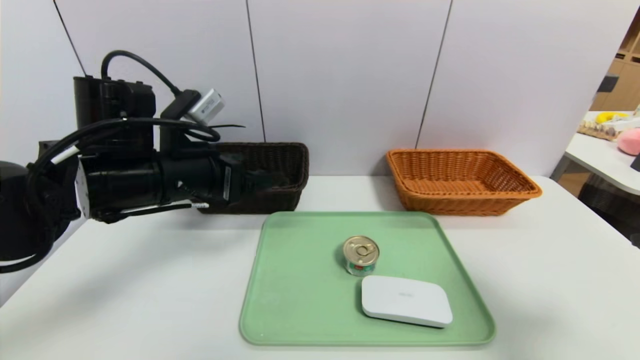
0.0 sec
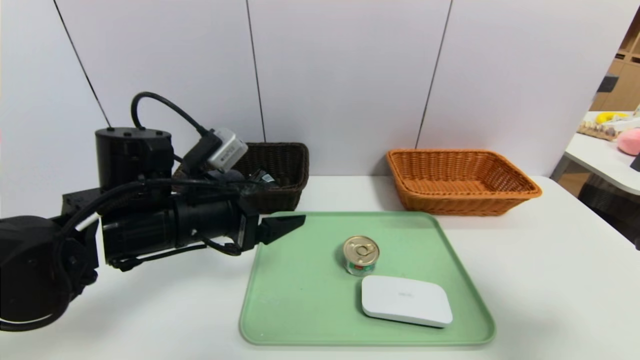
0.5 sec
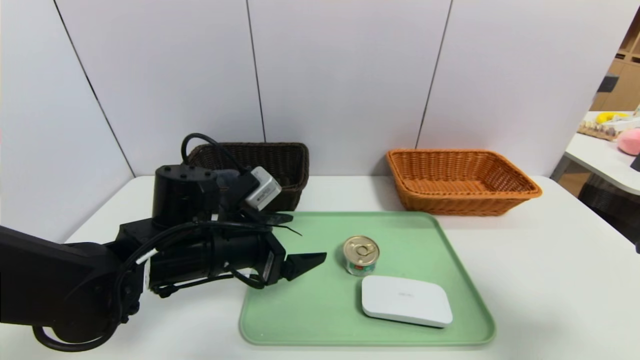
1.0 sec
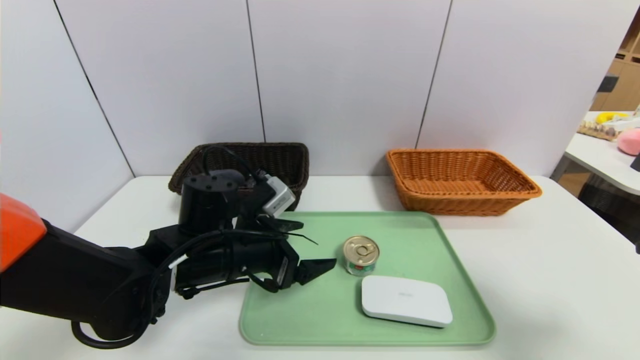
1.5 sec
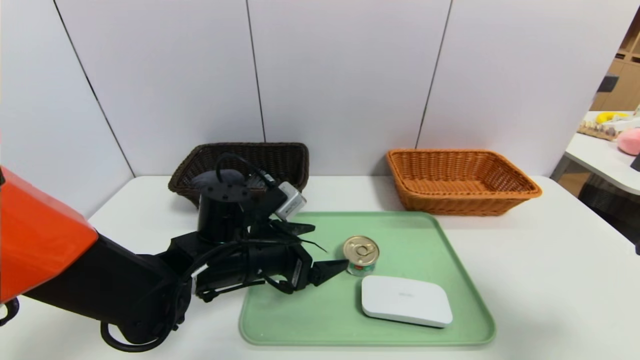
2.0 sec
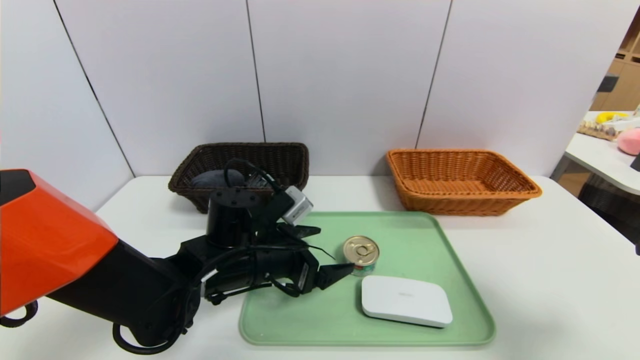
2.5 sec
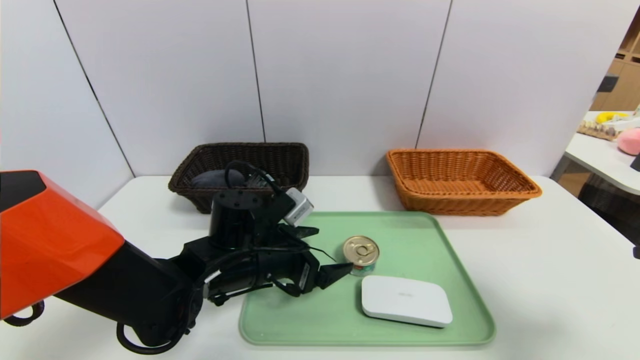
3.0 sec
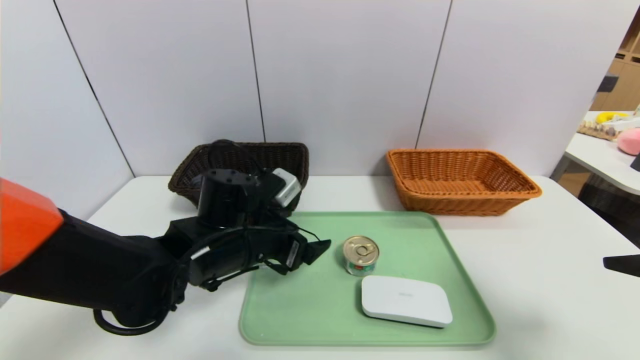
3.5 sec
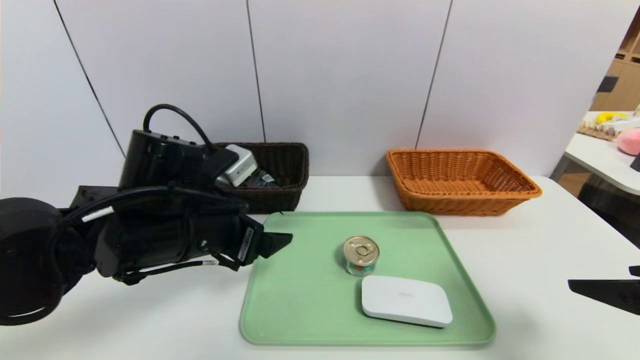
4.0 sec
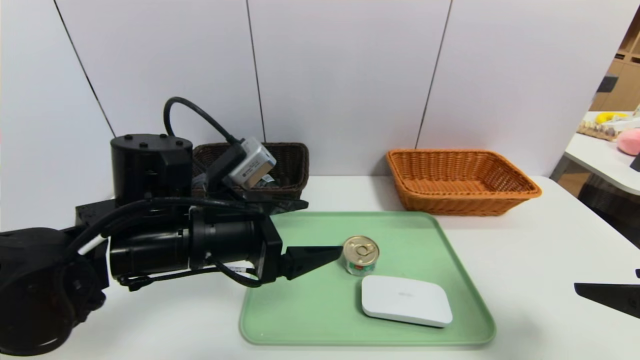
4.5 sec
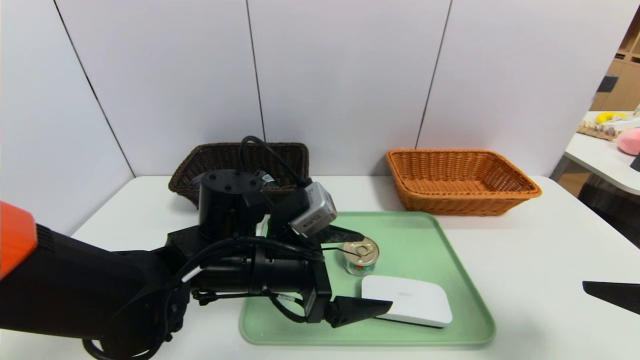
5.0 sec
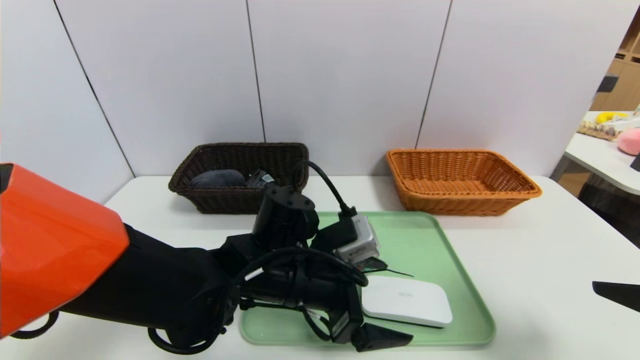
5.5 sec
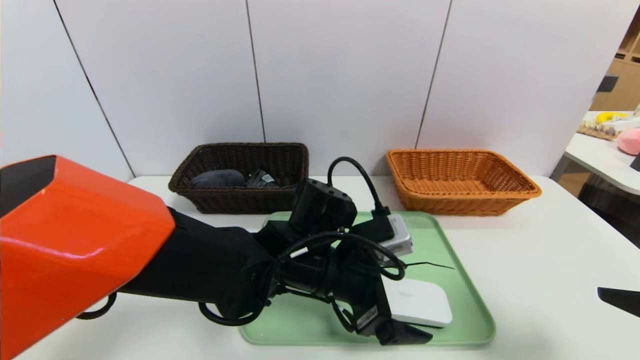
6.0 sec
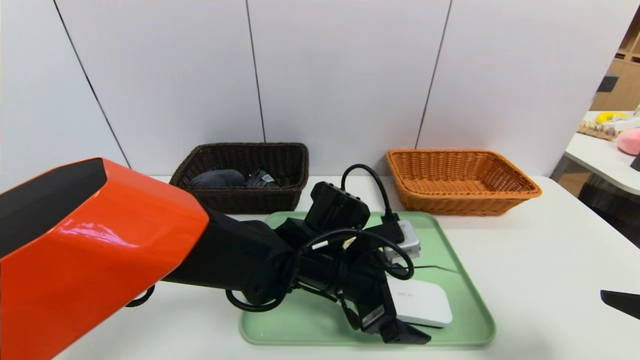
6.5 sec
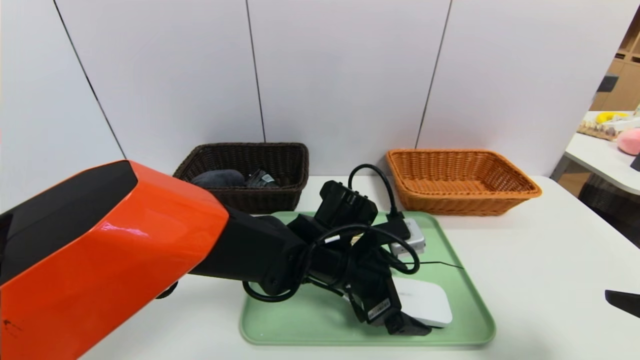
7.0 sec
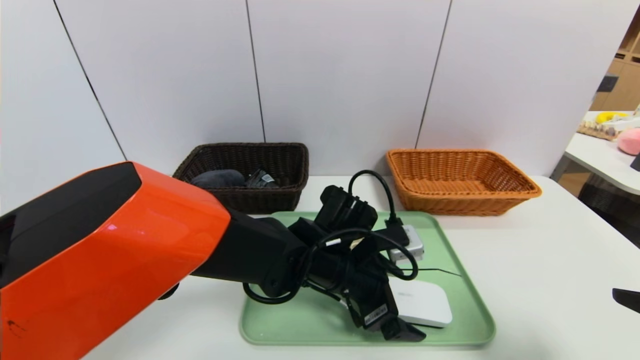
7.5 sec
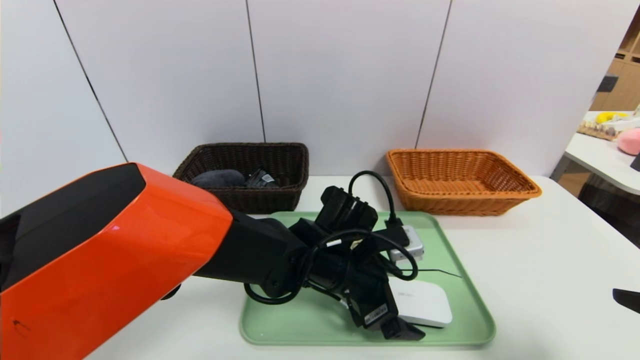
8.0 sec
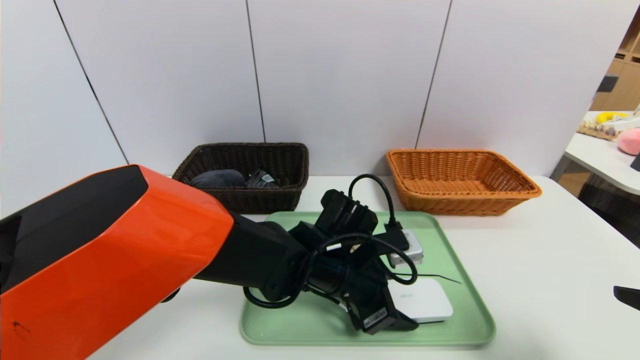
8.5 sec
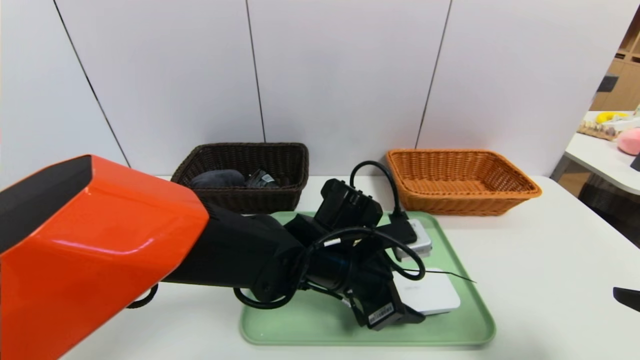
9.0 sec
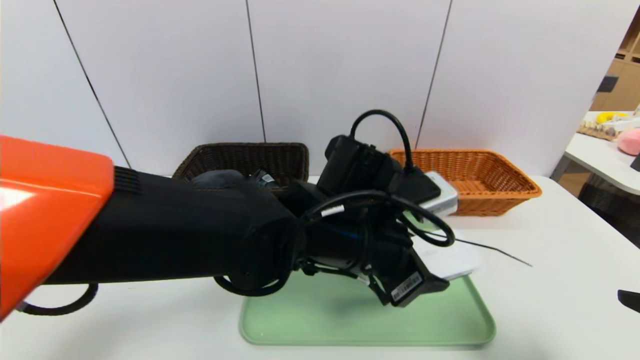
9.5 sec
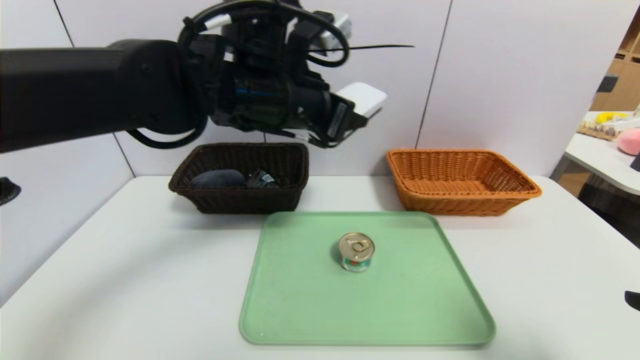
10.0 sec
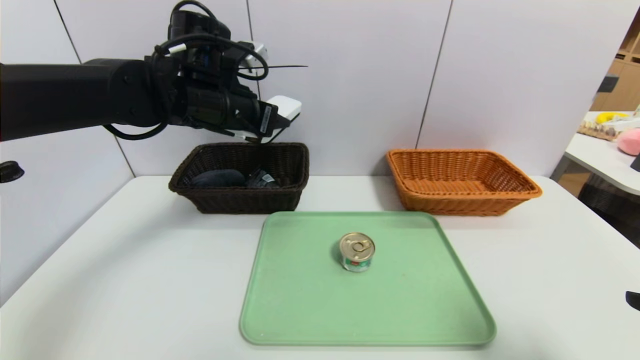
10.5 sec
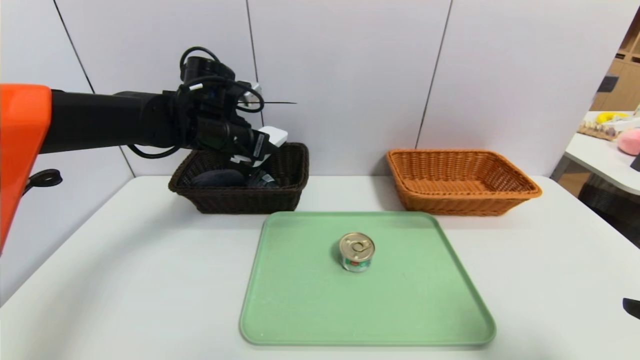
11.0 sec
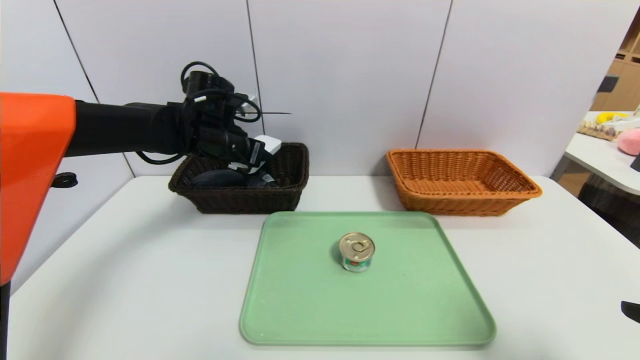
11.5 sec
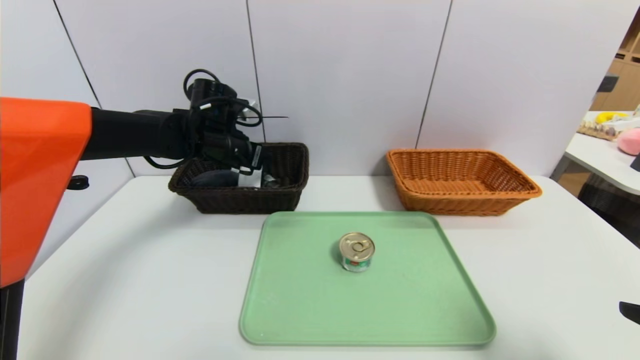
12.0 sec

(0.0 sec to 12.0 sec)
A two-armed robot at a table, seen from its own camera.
Task of the whole recording: place the food in the right basket with the right gripper, and place the non food items in the left basket with the left gripper.
0.0 sec - 2.0 sec: The left gripper moves downward and to the right, about 15 cm.
2.0 sec - 4.0 sec: The left gripper goes about 10 cm upward.
4.0 sec - 6.0 sec: The left gripper heads to the right and downward, covering some 15 cm.
6.0 sec - 8.0 sec: The grippers stay close to where they were, moving slightly.
8.0 sec - 10.0 sec: The left gripper is displaced upward by roughly 20 cm, and closes its fingers.
10.0 sec - 12.0 sec: The left gripper heads forward, downward and to the left, covering about 20 cm.

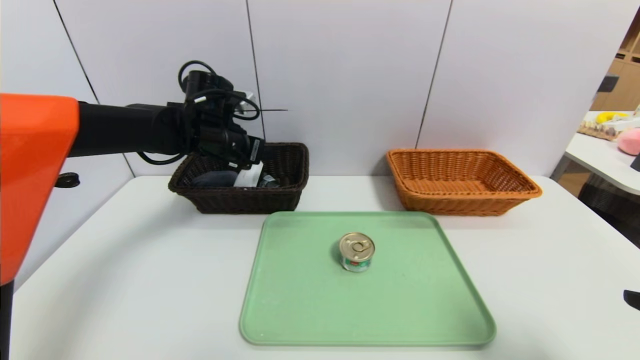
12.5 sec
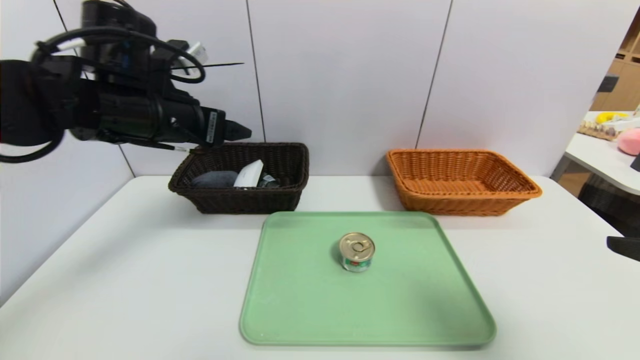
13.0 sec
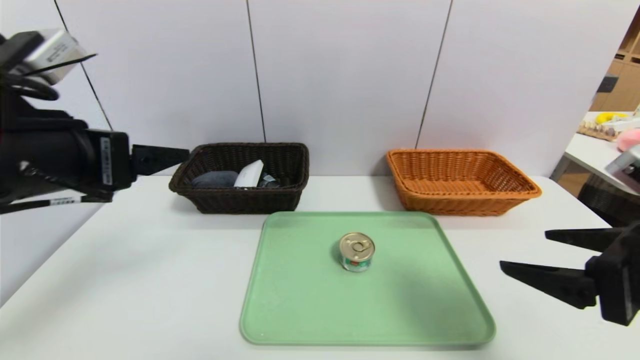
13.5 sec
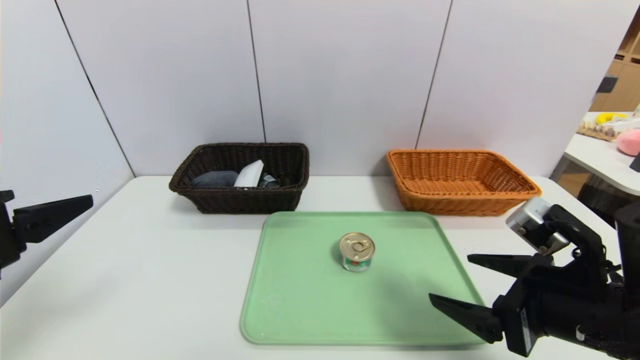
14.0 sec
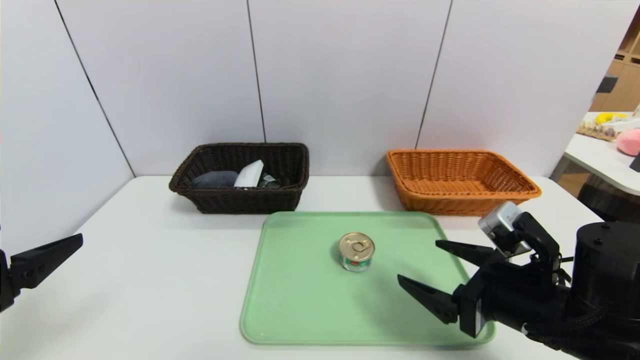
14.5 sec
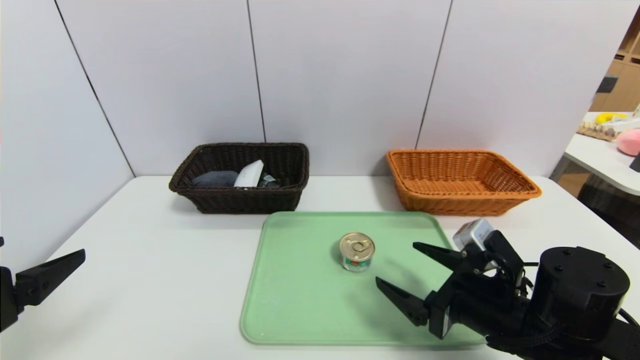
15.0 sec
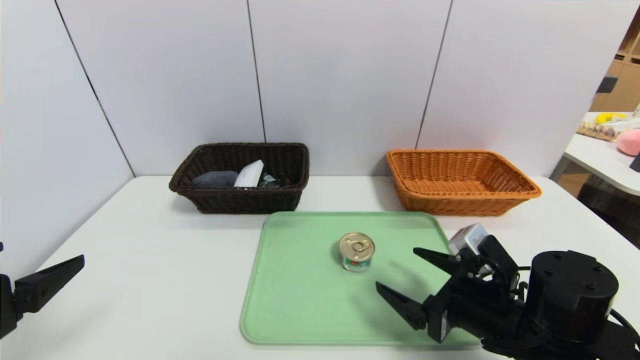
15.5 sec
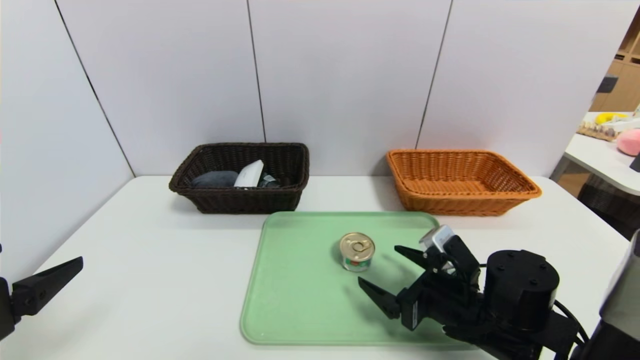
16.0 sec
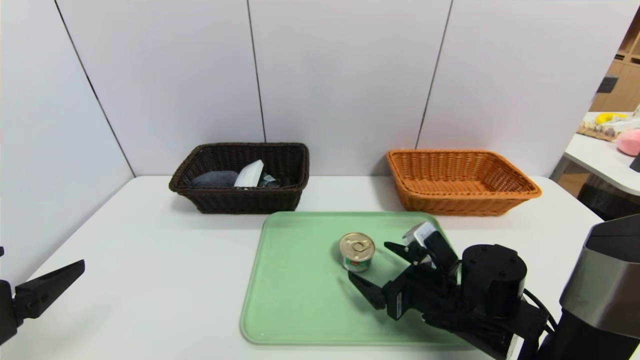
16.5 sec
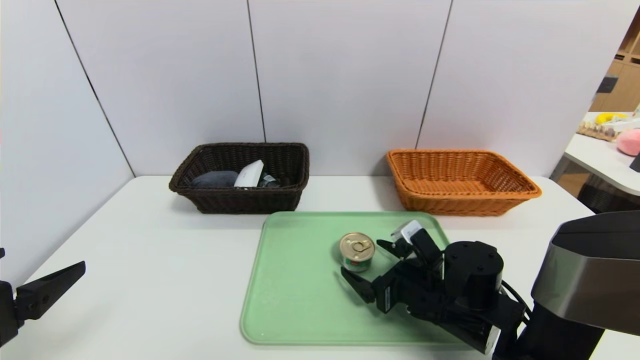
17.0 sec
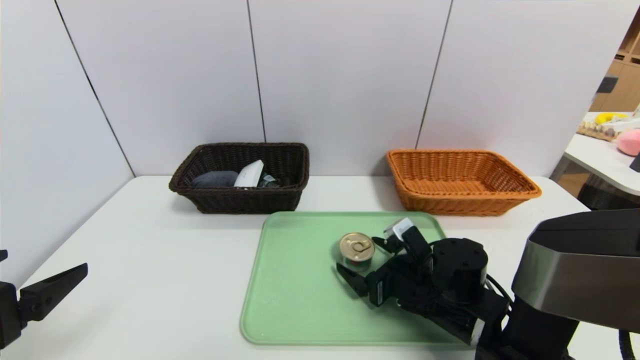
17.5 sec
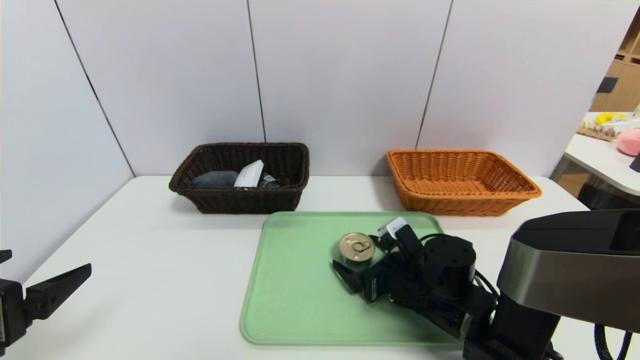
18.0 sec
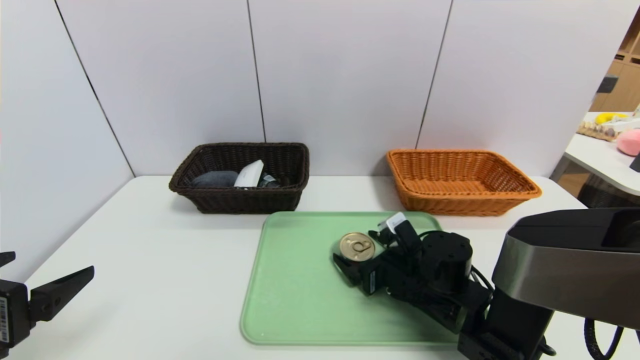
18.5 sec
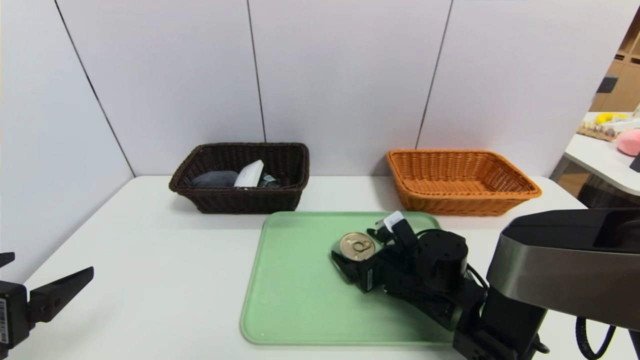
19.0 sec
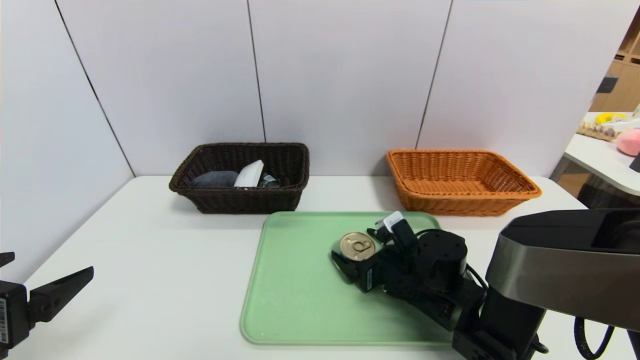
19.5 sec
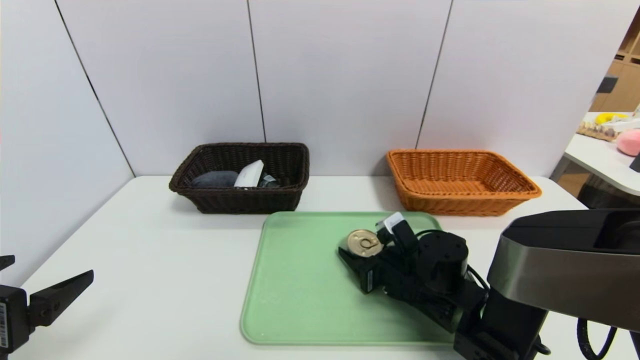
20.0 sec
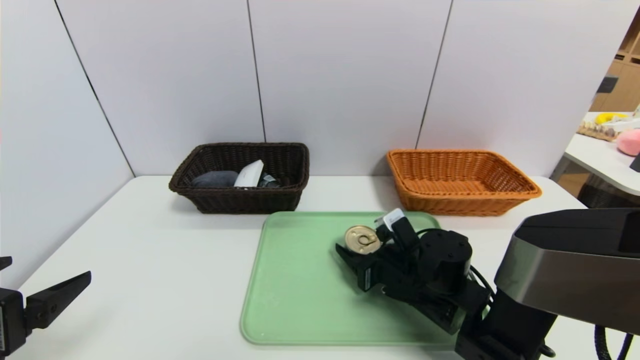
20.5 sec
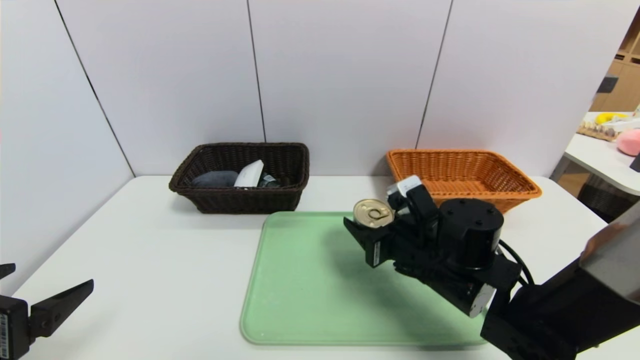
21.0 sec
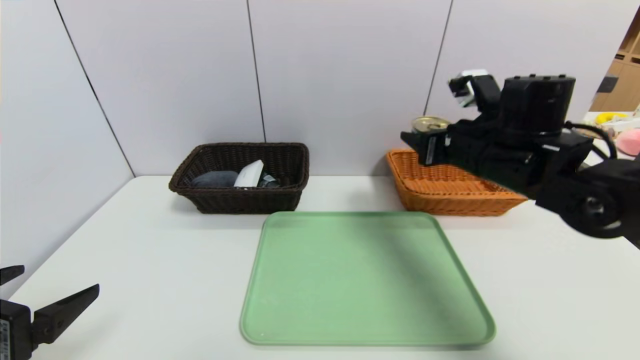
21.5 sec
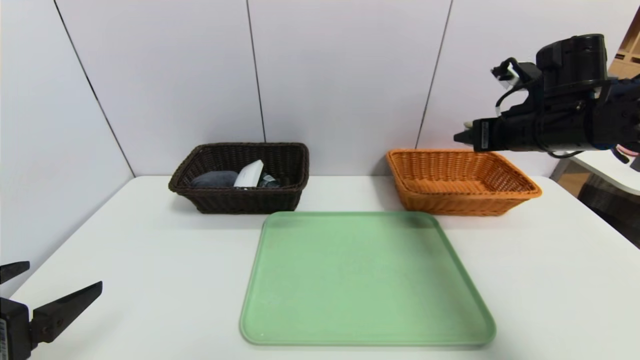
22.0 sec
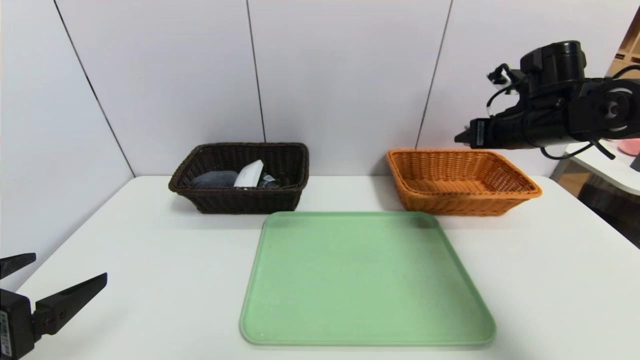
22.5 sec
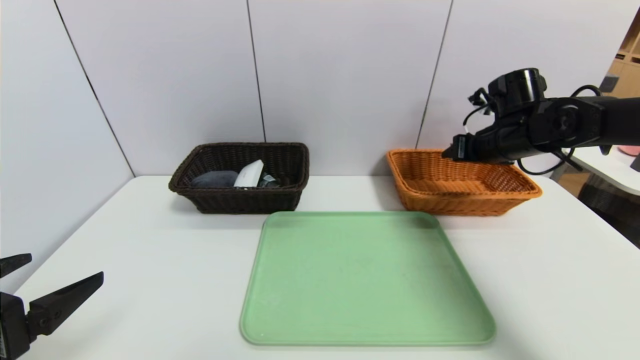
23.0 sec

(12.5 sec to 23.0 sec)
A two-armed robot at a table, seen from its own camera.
Task of the whole recording: place the food in the right basket with the right gripper, and place the non food items in the left basket with the left gripper.
12.5 sec - 14.5 sec: The left gripper goes roughly 35 cm backward. The right gripper moves downward, forward and to the left, about 20 cm.
14.5 sec - 16.5 sec: The right gripper heads downward, forward and to the left, covering some 10 cm.
16.5 sec - 19.0 sec: The right gripper is displaced forward by approximately 5 cm.
19.0 sec - 21.0 sec: The right gripper goes roughly 10 cm upward, and closes its fingers.
21.0 sec - 23.0 sec: The right gripper heads to the right, forward and upward, covering roughly 25 cm.
